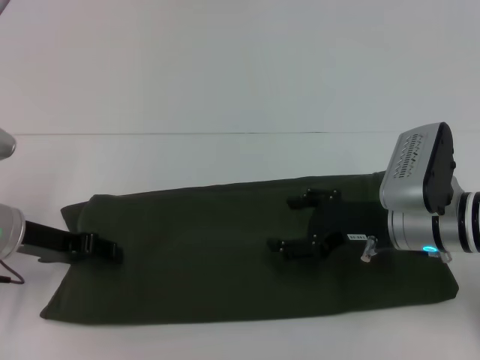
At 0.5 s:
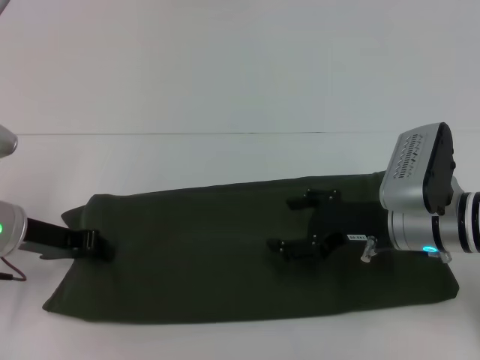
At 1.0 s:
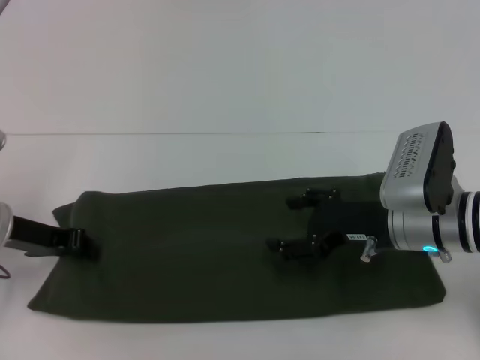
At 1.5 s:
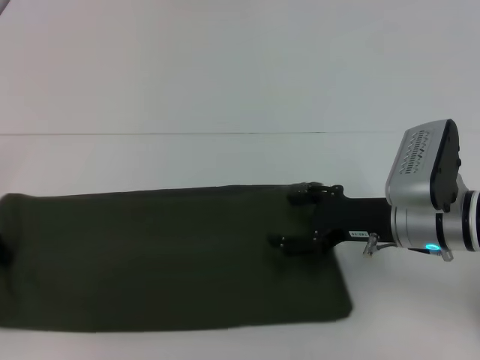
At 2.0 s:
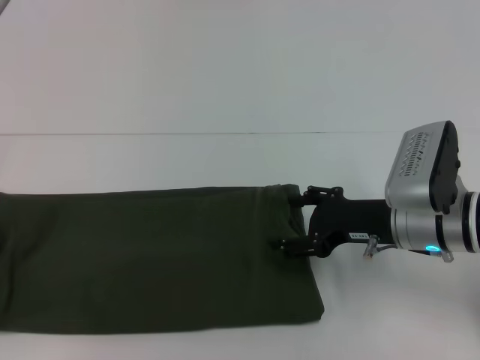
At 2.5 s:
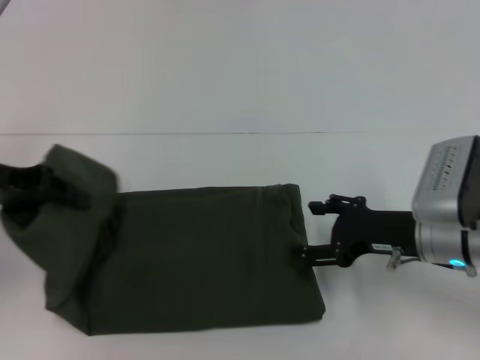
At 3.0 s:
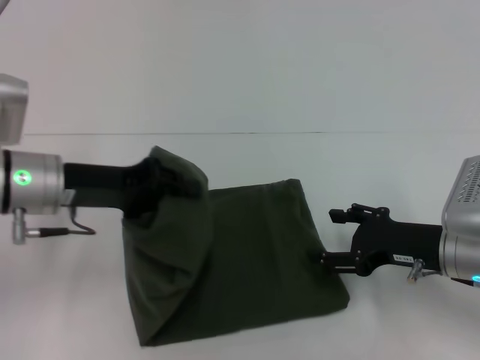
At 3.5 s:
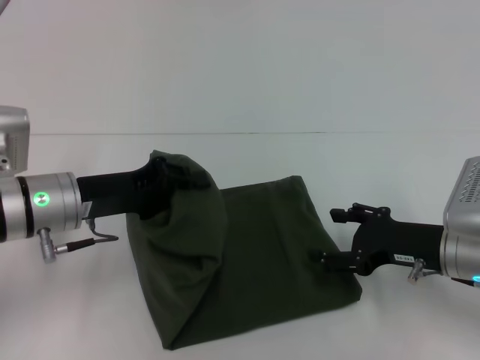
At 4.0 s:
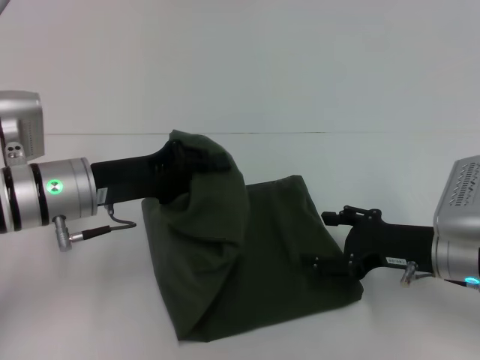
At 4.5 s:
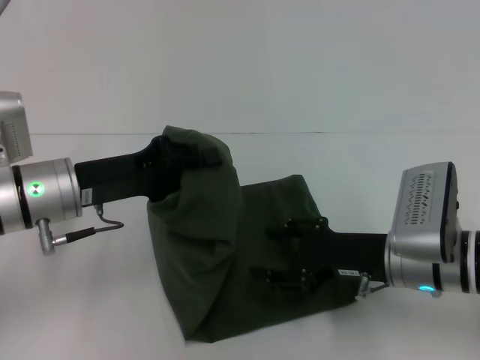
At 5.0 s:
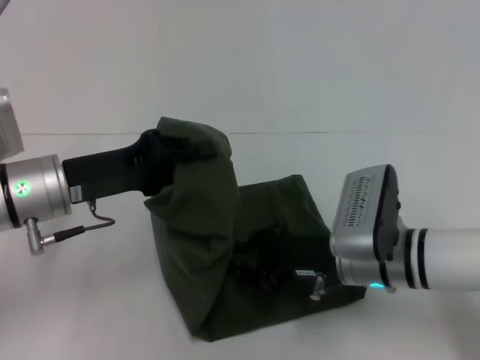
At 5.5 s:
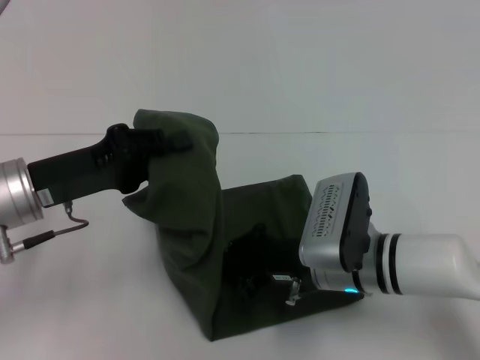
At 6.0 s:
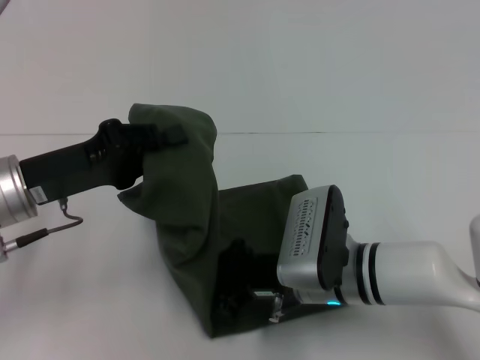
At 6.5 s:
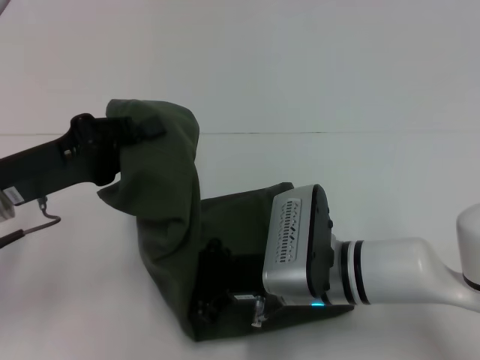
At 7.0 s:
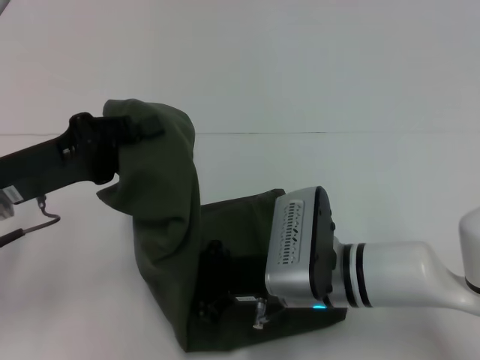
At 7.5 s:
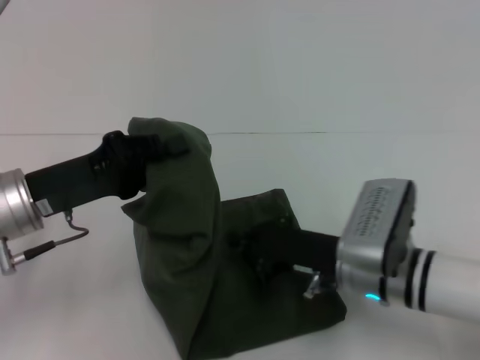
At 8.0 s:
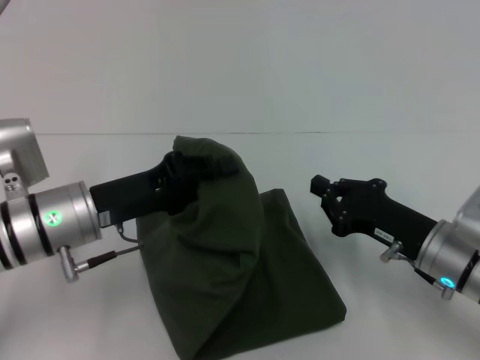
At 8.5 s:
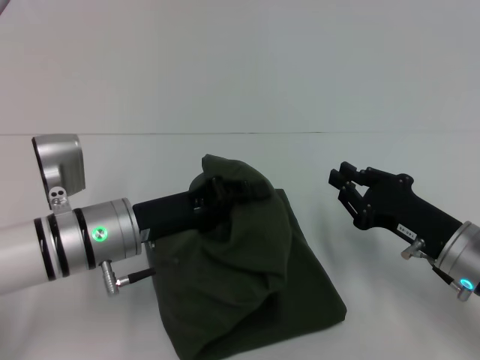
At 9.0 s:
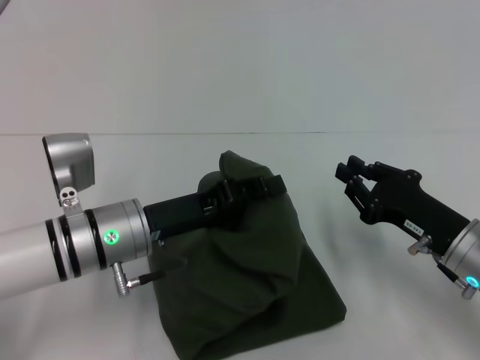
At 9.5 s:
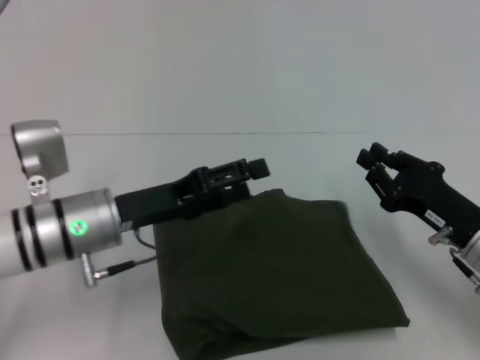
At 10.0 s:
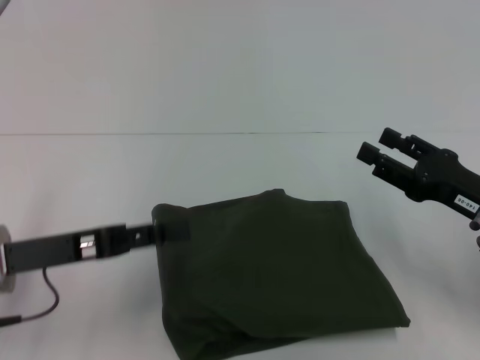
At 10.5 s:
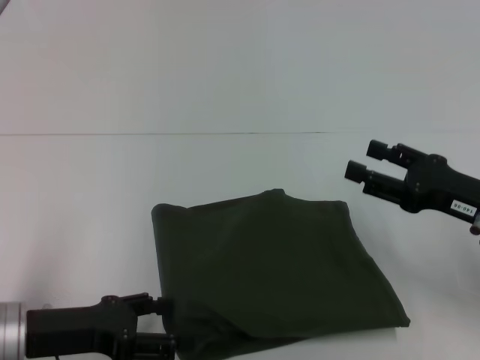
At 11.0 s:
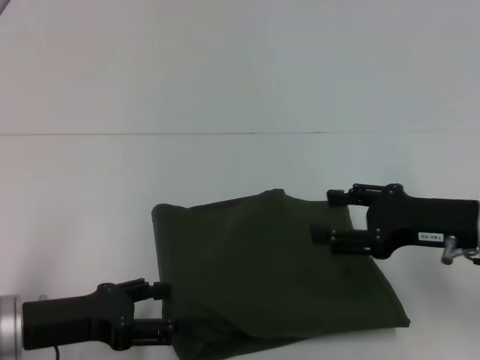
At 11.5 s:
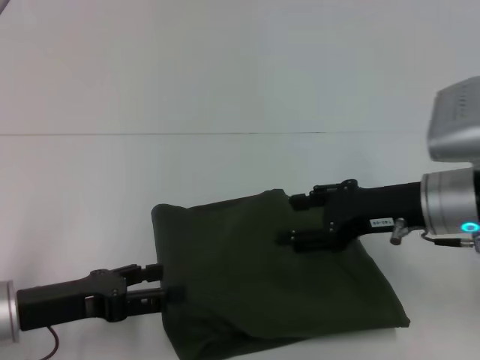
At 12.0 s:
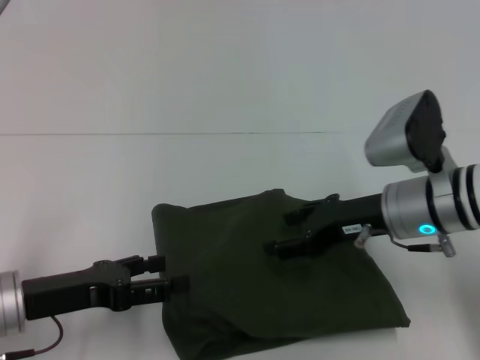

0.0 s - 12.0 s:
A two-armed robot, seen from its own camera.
Step, 0.0 s - 9.5 s: Fold the clothes with your left hand.
0.0 s - 2.0 s: The left gripper shifts some 10 cm to the left, and closes up.
2.0 s - 4.0 s: The right gripper moves some 5 cm. Meanwhile the left gripper goes approximately 20 cm to the right.
4.0 s - 6.0 s: The left gripper ends up about 5 cm from where it was, while the right gripper is displaced to the left by approximately 15 cm, and closes.
6.0 s - 8.0 s: The right gripper shifts some 10 cm to the right, while the left gripper ends up about 5 cm from where it was.
8.0 s - 10.0 s: The right gripper is displaced to the right by some 5 cm, and opens up. The left gripper shifts some 5 cm to the left, and opens up.
10.0 s - 12.0 s: The right gripper moves to the left and forward, roughly 10 cm.

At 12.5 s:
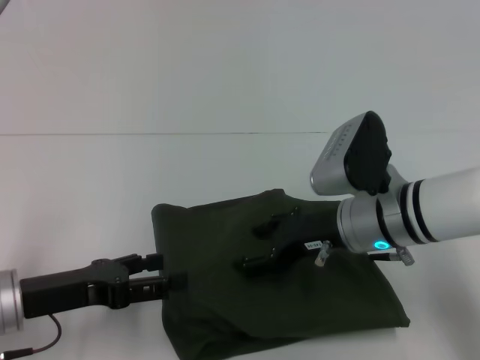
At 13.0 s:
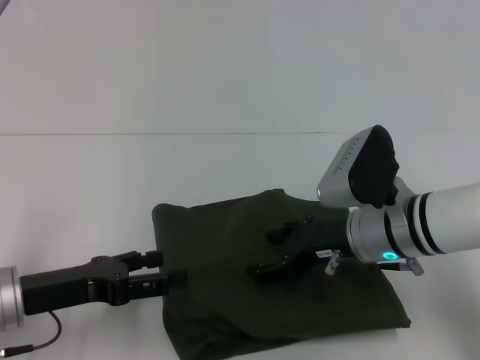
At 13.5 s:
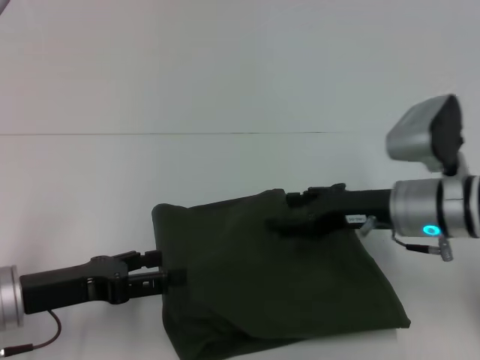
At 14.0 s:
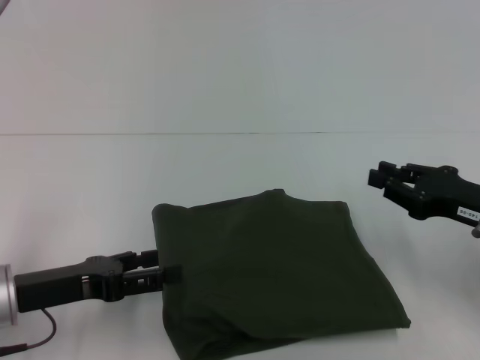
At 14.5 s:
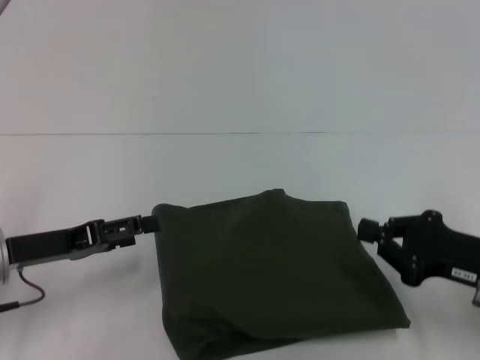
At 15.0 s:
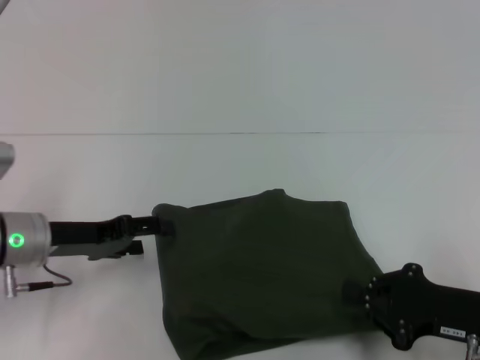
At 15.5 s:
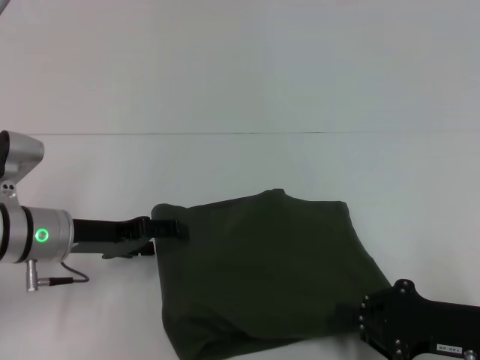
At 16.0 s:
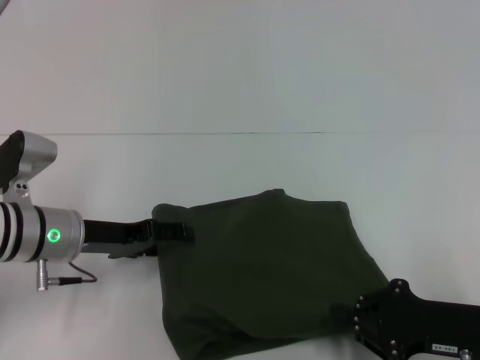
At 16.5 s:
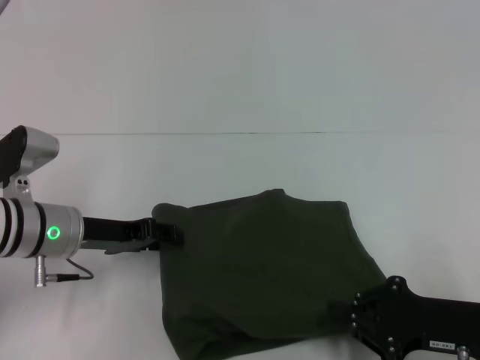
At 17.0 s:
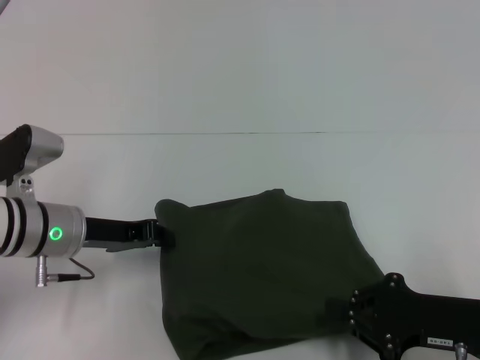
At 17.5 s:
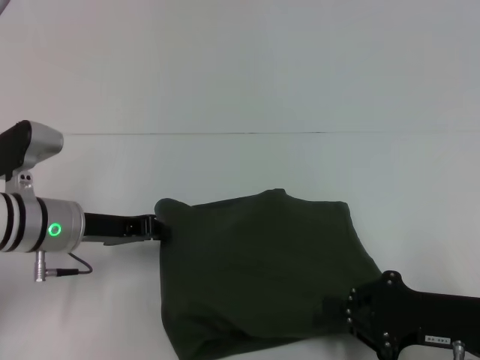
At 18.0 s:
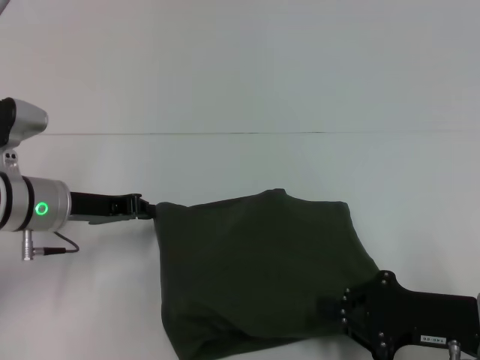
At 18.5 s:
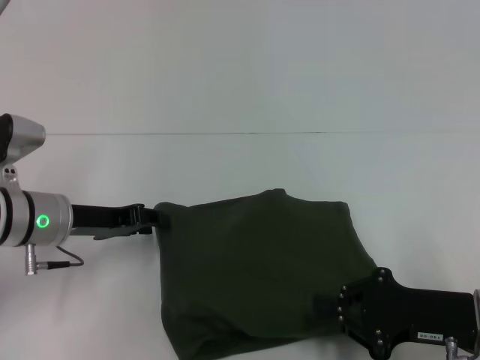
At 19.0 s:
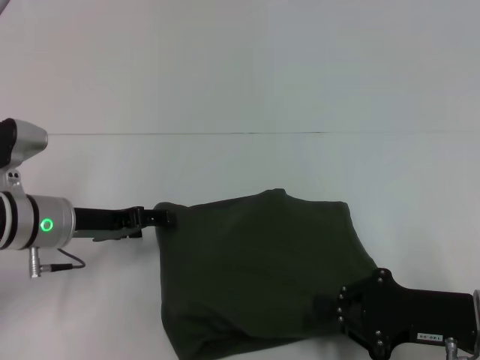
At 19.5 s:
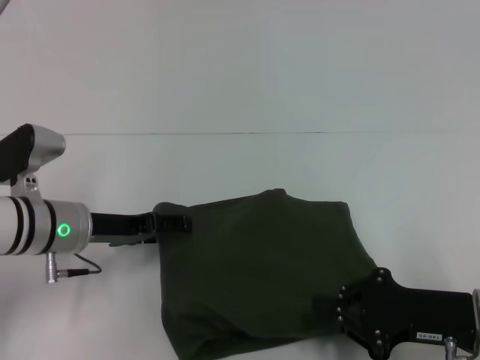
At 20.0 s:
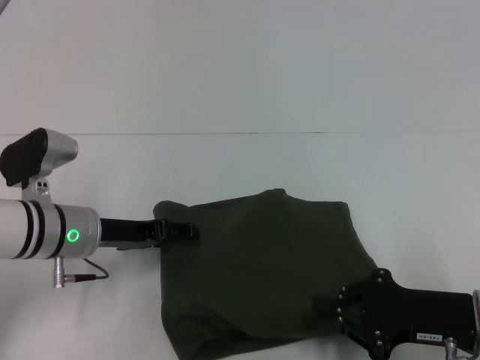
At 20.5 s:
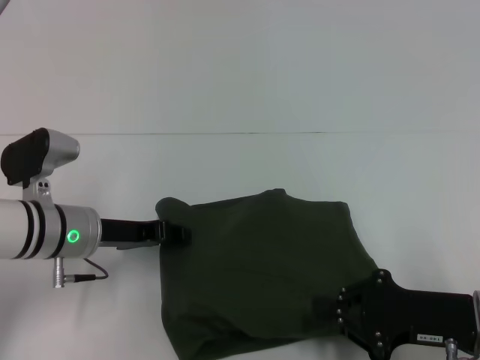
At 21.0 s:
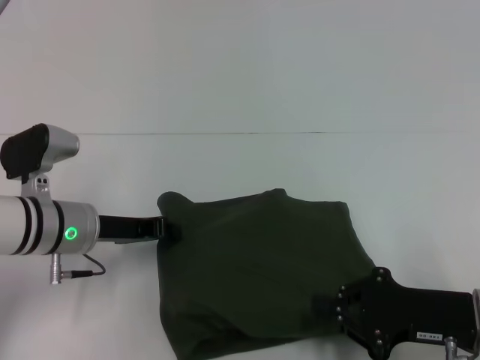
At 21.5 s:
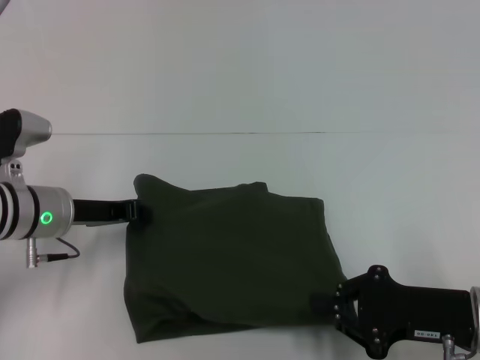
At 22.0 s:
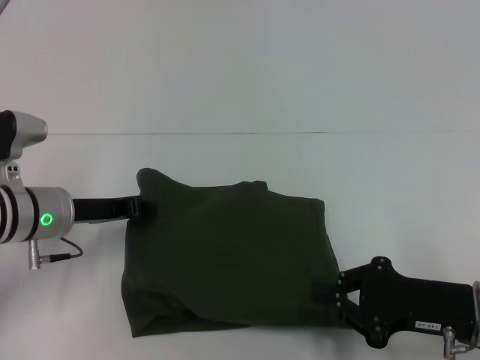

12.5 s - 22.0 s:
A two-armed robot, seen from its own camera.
12.5 s - 14.5 s: The right gripper shifts some 15 cm to the right and backward, and closes its fingers.
14.5 s - 16.5 s: The left gripper moves forward and to the right, some 10 cm.
16.5 s - 18.0 s: The left gripper closes.
18.0 s - 20.0 s: The left gripper opens up.
20.0 s - 22.0 s: The left gripper closes up.

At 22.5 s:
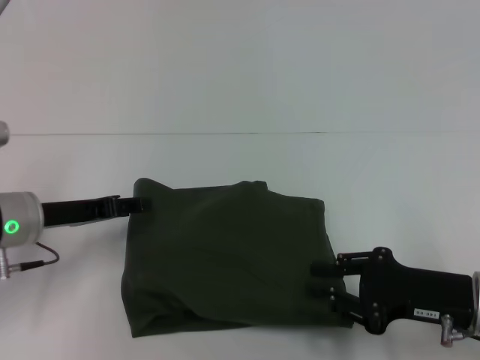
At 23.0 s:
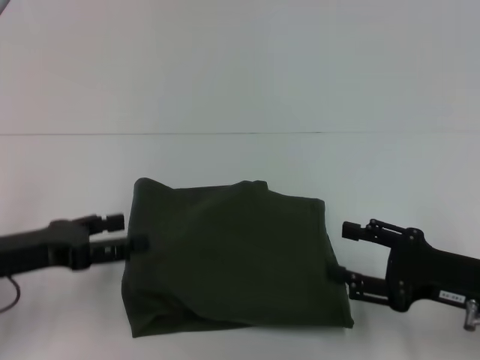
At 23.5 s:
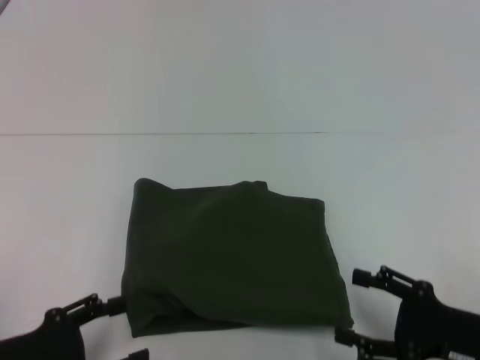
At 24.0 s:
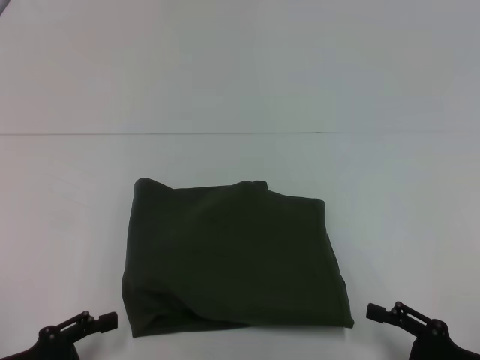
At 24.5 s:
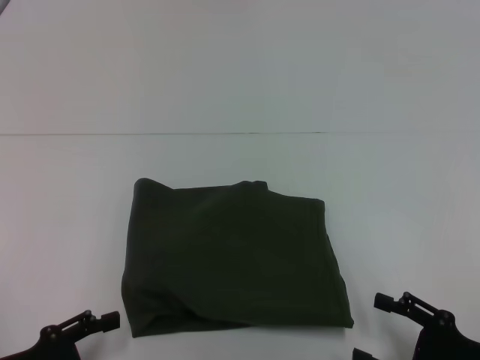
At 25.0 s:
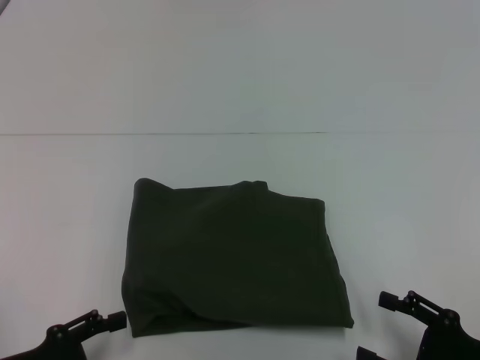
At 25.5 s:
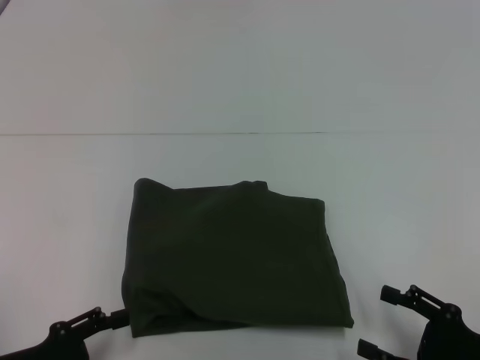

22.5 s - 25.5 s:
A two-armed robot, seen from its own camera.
22.5 s - 24.0 s: The left gripper heads backward, covering roughly 15 cm, and opens. Meanwhile the right gripper goes about 10 cm backward and downward, and opens its fingers.
24.0 s - 25.5 s: Both grippers stay about where they are.

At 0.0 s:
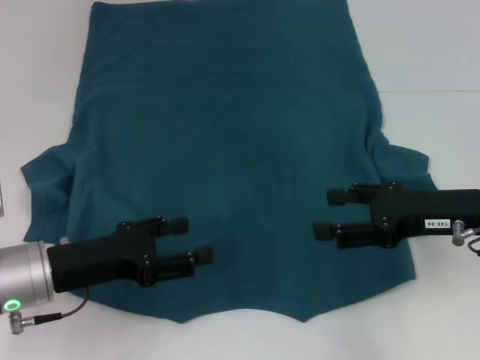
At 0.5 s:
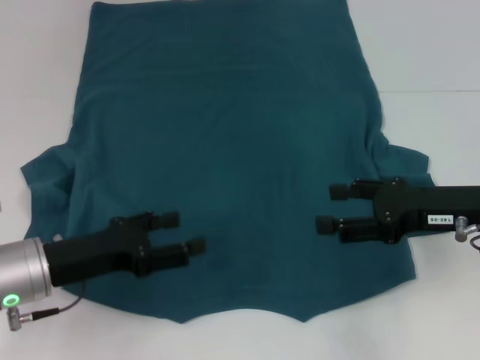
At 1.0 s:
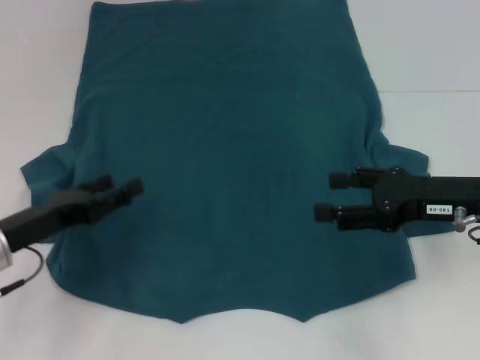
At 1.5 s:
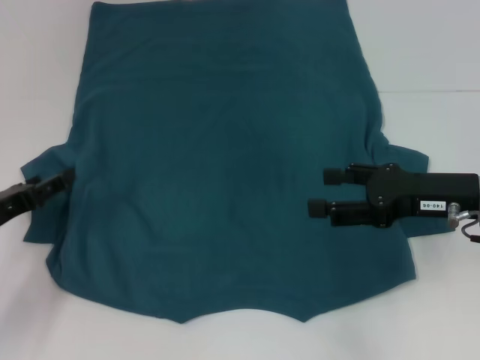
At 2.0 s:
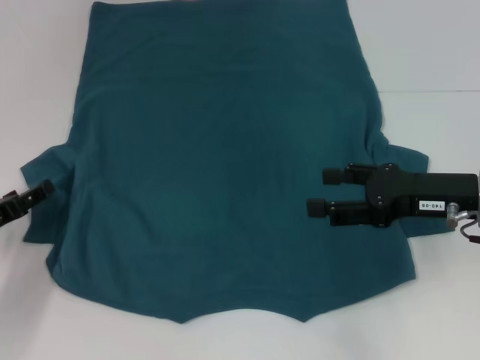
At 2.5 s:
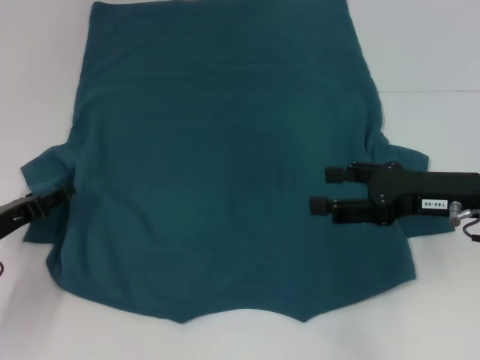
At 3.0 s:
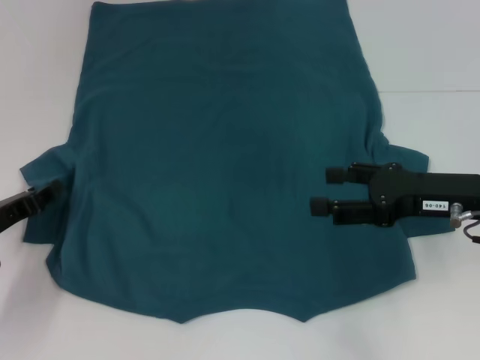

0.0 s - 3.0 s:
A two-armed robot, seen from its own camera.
0.0 s - 1.5 s: The left gripper heads to the left, covering some 10 cm.
1.5 s - 3.0 s: The grippers move only a little.
